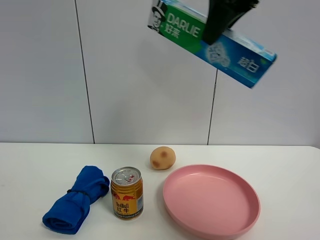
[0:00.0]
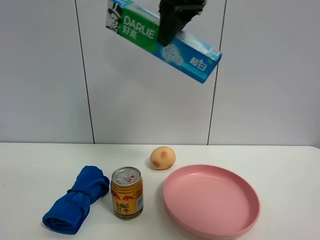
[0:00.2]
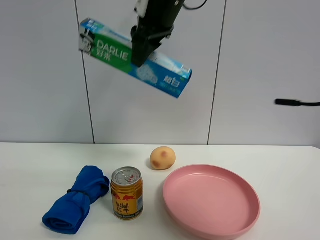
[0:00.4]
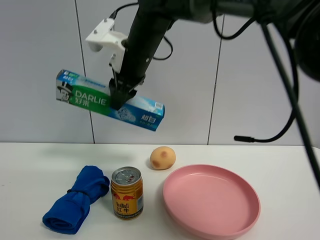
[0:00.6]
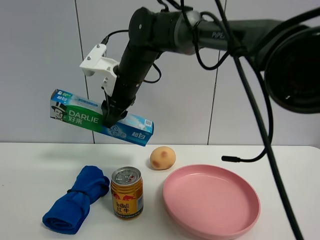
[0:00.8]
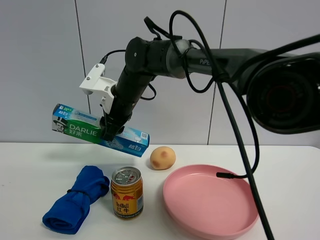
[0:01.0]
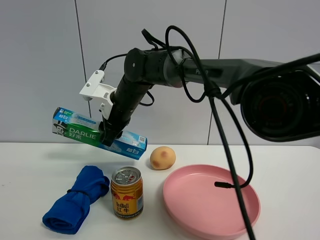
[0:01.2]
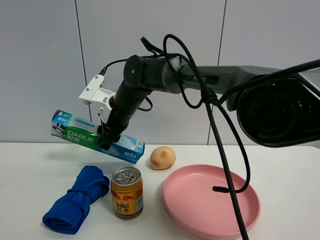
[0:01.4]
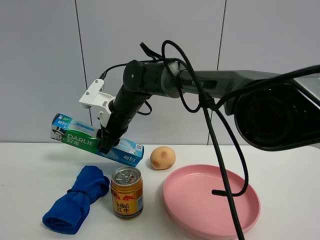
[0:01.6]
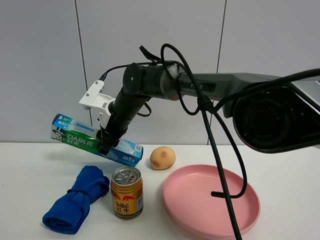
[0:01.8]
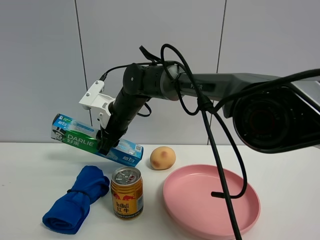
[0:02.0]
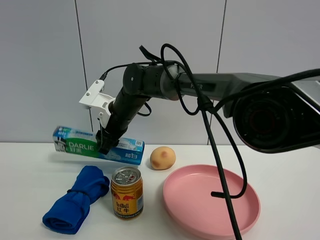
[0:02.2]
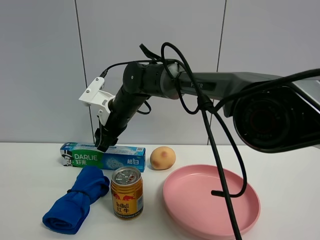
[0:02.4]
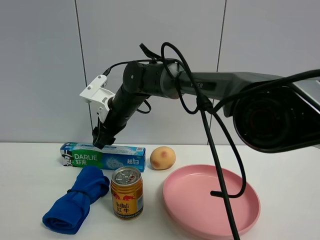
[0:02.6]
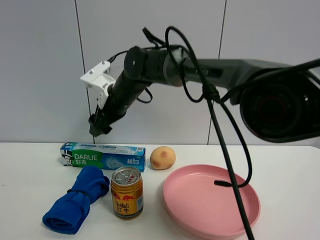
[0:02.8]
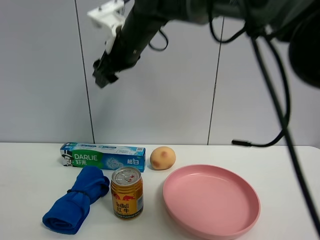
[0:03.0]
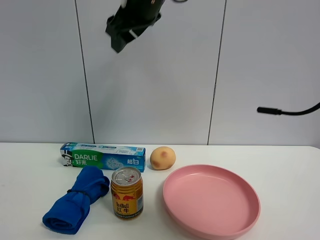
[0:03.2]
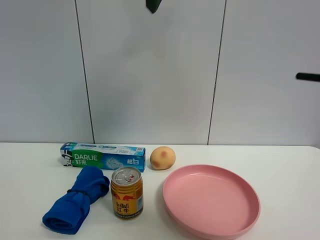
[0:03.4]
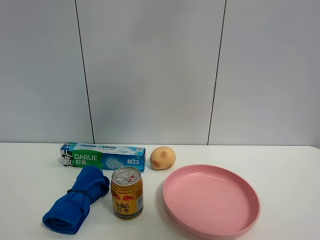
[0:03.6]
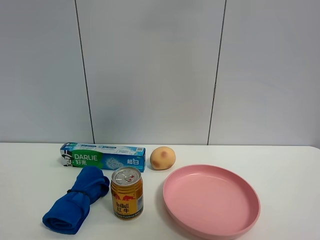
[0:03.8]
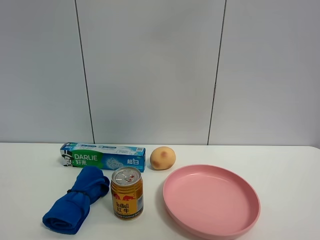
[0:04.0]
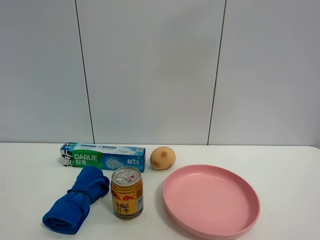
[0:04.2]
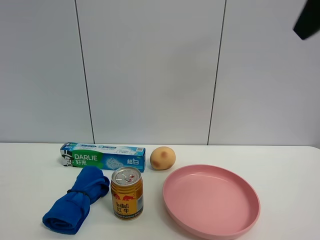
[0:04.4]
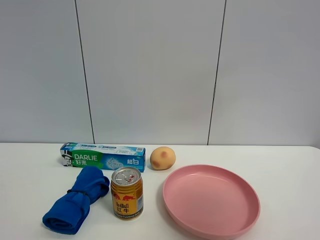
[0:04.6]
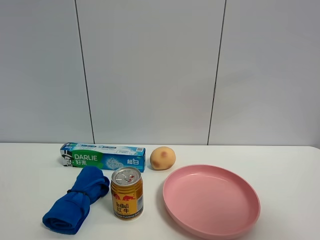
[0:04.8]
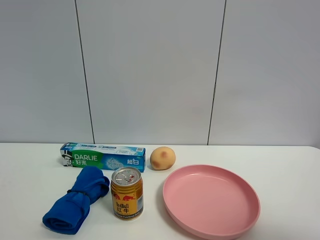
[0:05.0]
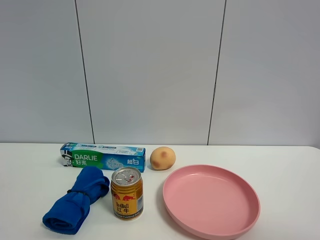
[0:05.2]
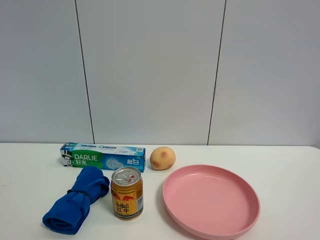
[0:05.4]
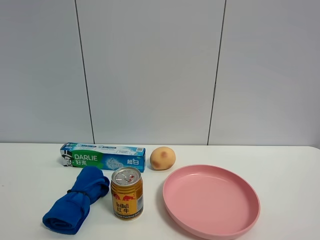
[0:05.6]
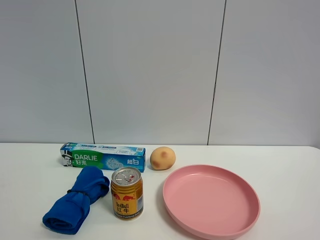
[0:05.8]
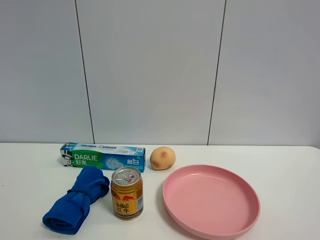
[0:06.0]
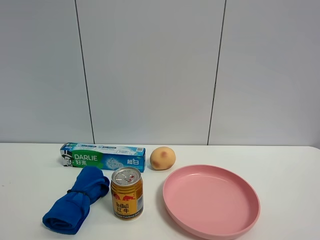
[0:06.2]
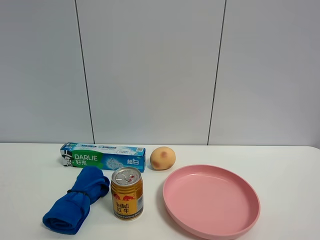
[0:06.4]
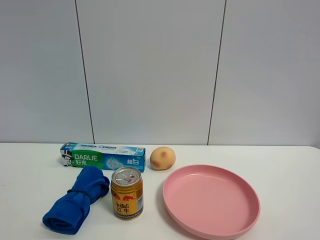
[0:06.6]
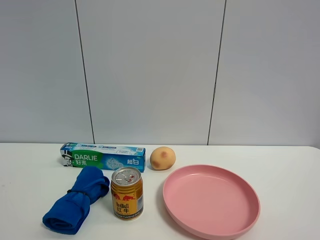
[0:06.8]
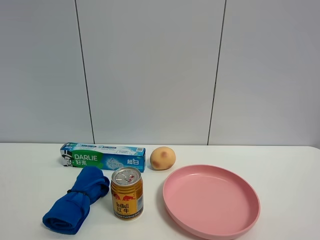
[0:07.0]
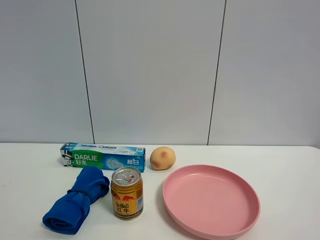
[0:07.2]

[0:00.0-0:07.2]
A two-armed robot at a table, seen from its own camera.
Task of the whole recording: the gripper move the object.
Step, 0.0 to 2.6 s: Place the toothpaste on the table with the right gripper.
0.0 to 1.4 s: The right gripper goes about 30 cm downward and to the left.
1.4 to 2.8 s: The right gripper opens up.
2.8 to 4.4 s: The right gripper goes some 40 cm to the right, backward and upward.
4.4 to 5.8 s: The right gripper shifts some 25 cm backward, downward and to the right.

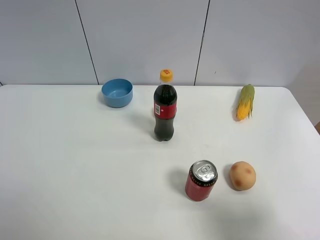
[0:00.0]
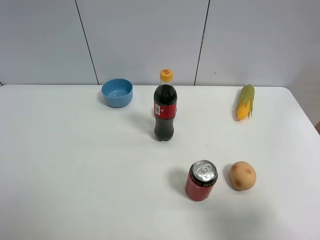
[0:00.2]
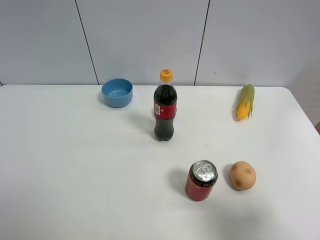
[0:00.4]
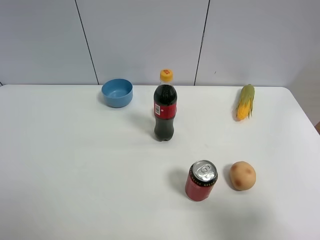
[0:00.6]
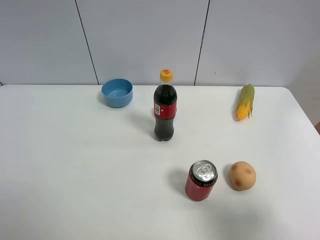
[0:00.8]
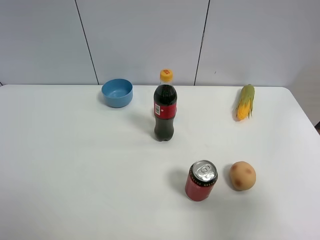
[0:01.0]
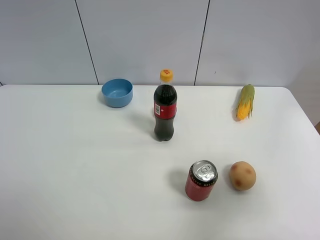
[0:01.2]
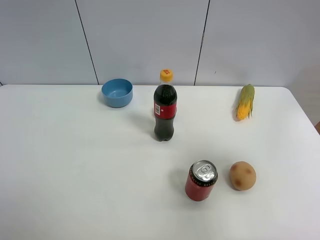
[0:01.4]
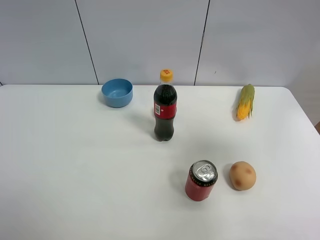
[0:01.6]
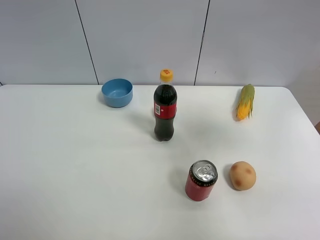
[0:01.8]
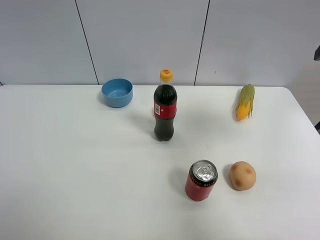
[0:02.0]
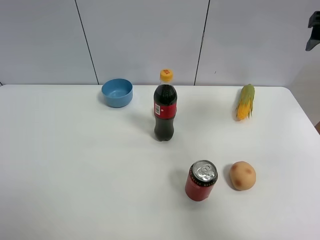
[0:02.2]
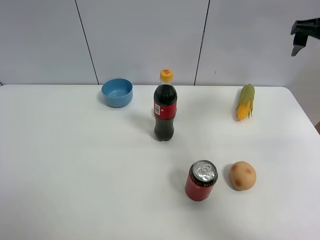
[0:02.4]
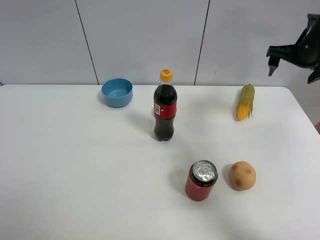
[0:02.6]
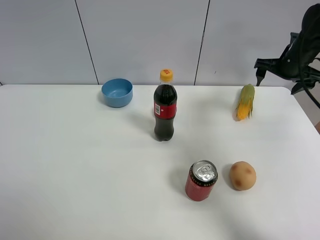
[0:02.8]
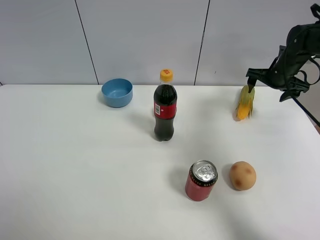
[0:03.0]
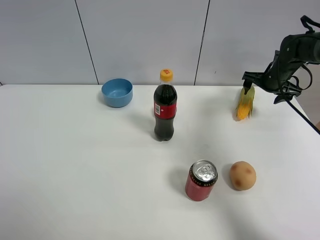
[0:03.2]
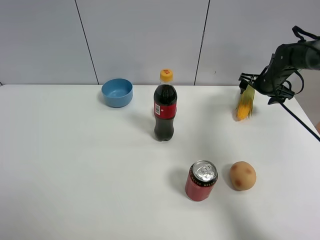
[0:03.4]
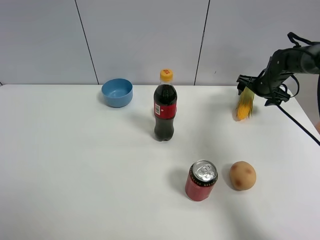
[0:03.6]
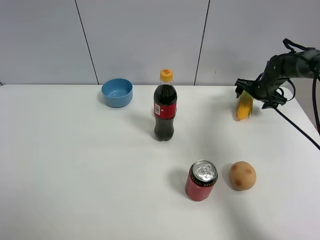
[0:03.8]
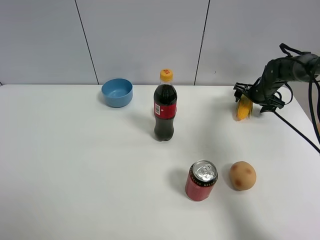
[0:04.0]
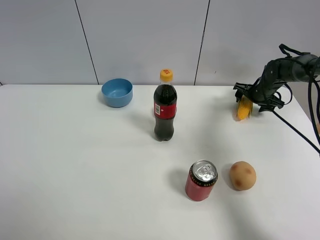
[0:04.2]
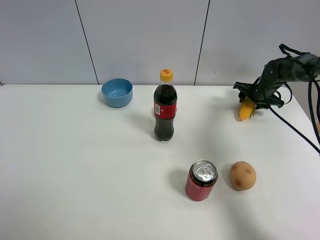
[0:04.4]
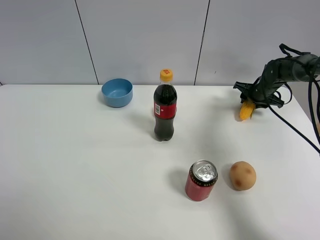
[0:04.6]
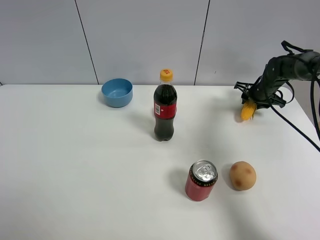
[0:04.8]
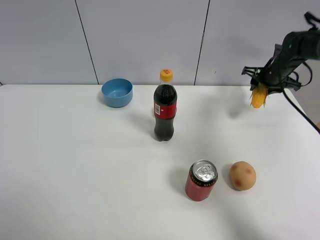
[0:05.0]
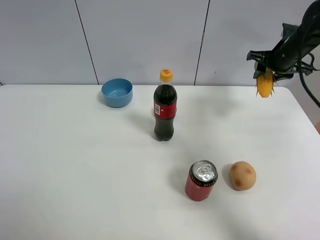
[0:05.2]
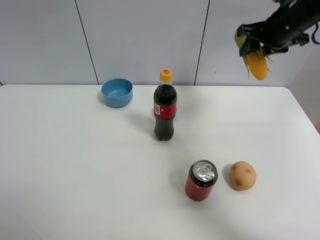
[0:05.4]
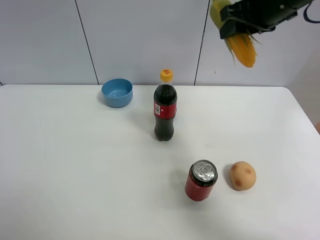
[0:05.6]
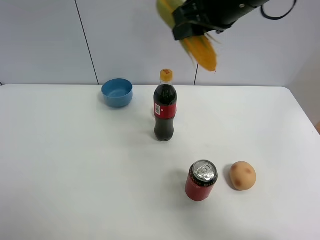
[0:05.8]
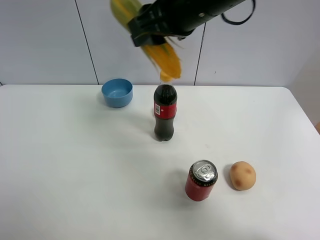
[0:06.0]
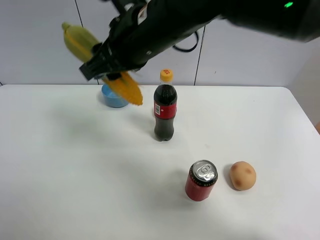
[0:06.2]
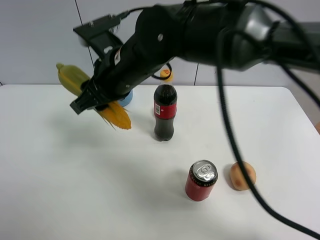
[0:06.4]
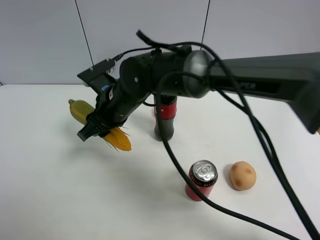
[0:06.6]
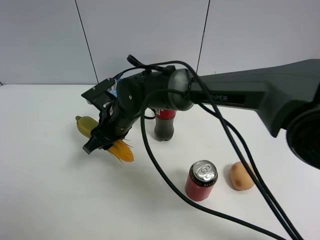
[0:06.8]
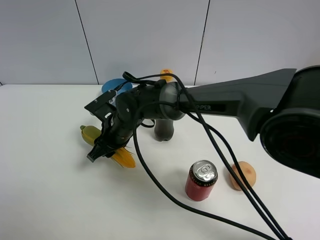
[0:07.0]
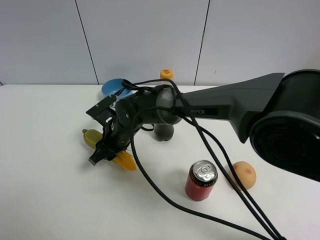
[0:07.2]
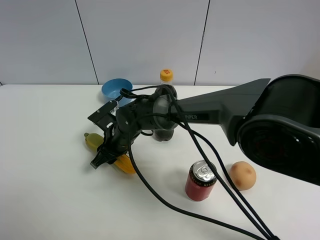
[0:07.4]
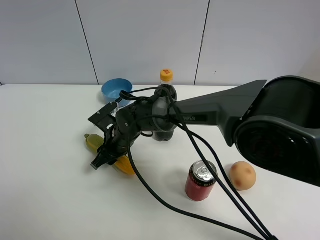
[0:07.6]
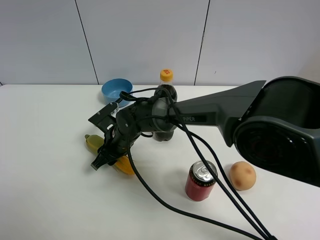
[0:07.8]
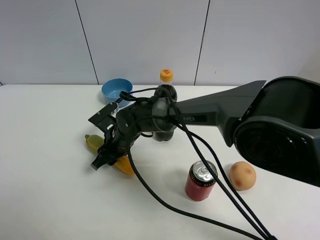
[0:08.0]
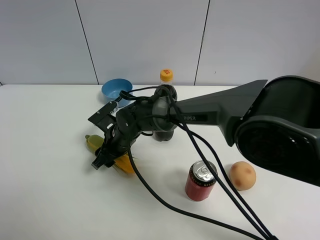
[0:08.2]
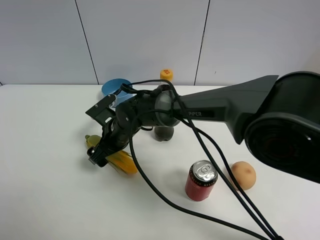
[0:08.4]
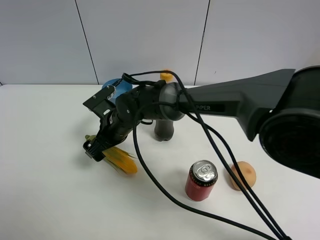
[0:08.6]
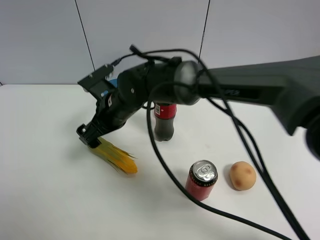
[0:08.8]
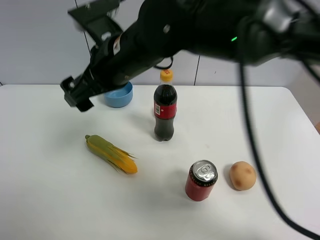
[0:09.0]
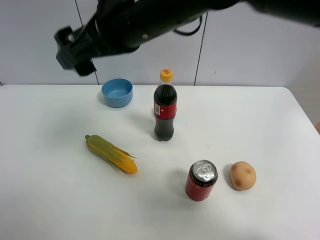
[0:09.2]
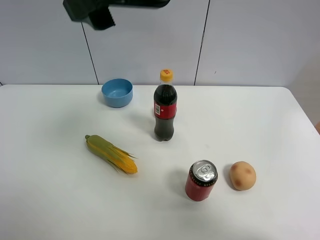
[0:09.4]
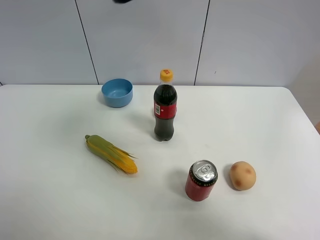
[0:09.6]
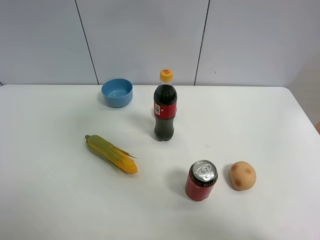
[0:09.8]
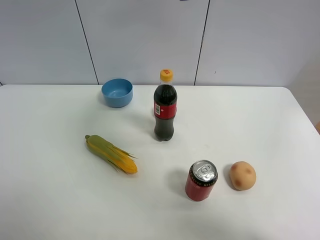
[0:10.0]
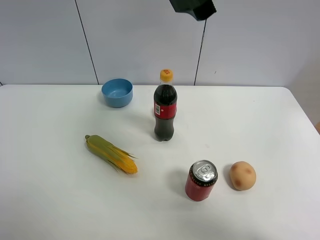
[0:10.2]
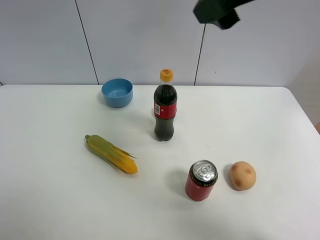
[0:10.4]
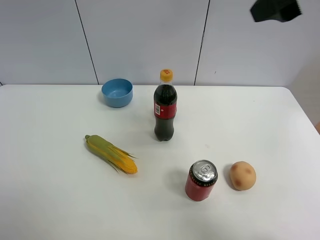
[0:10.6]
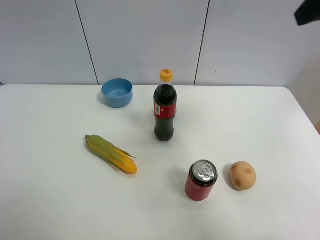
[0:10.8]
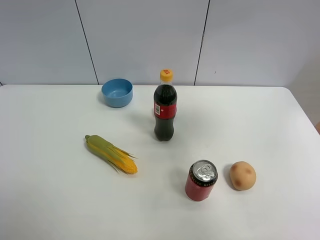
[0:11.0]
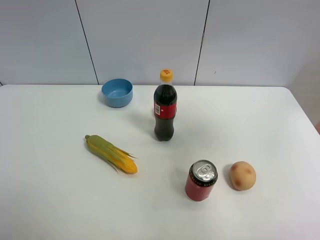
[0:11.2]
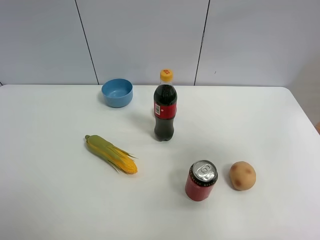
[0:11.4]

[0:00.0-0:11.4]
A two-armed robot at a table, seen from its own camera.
Task of the whole recording: the gripper move the object.
Step, 0.0 to 4.4 s: Grasp the corn with the right gripper.
Step, 4.6 to 8.2 s: Place the corn on the table with the right gripper.
0.0 to 1.4 s: The right gripper shifts roughly 15 cm forward and upward.
1.4 to 2.8 s: The right gripper is displaced forward and downward by approximately 35 cm.
2.8 to 4.2 s: The right gripper heads downward, covering about 10 cm.
4.2 to 5.6 s: The right gripper shifts some 35 cm upward, to the left and backward, and closes up.
5.6 to 7.2 s: The right gripper goes roughly 40 cm downward and to the left.
7.2 to 8.6 s: The right gripper opens up.
8.6 to 10.0 s: The right gripper shifts roughly 35 cm upward and to the right.
10.0 to 11.4 s: The right gripper heads to the right and backward, covering about 25 cm.

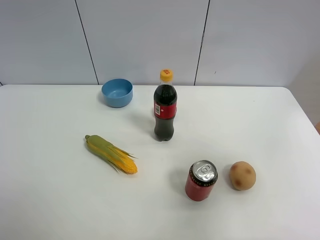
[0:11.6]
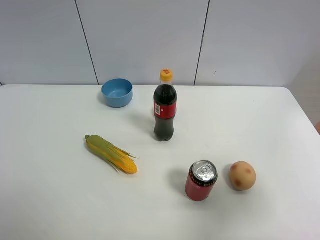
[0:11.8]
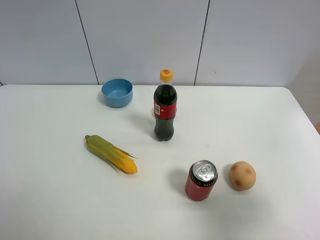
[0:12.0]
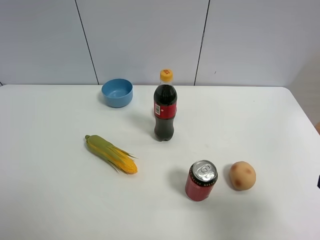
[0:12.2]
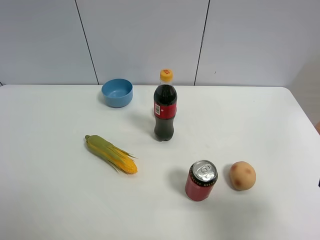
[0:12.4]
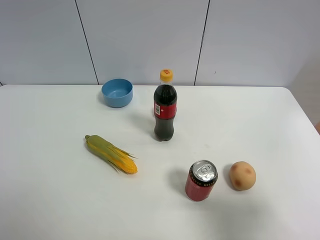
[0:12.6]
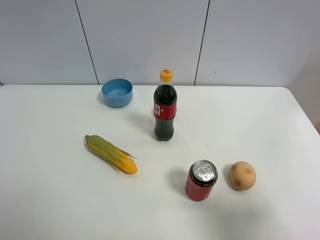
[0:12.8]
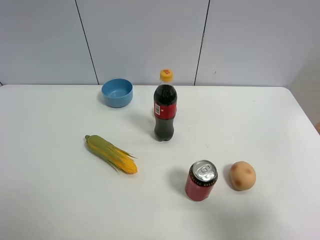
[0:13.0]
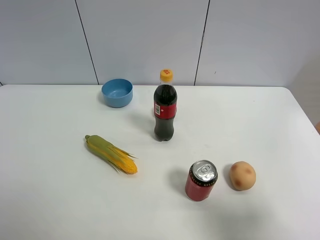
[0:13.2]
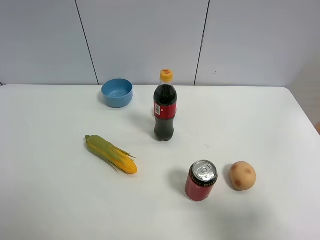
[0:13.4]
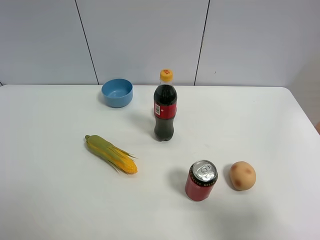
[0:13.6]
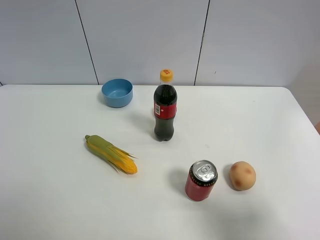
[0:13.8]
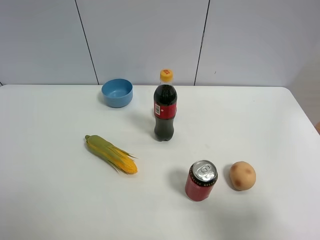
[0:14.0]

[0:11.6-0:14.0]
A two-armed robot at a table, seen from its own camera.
Task of the whole recording: the gripper move the object.
11.6 to 12.8 s: The right gripper moves downward and backward, roughly 10 cm.
12.8 to 14.0 s: Neither gripper changes place.

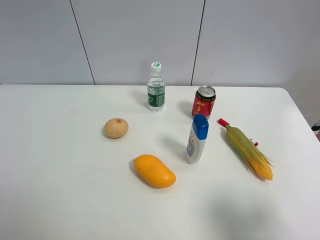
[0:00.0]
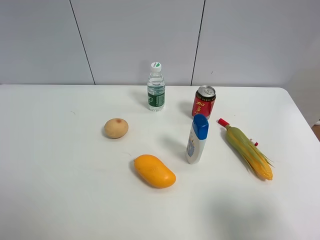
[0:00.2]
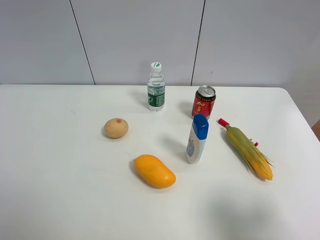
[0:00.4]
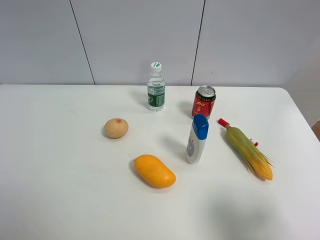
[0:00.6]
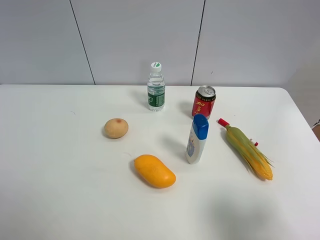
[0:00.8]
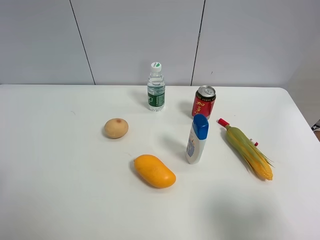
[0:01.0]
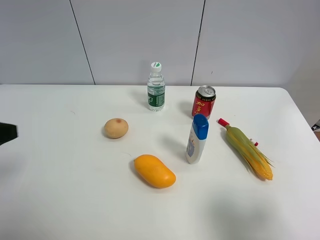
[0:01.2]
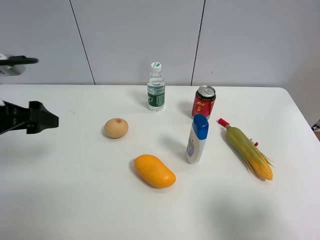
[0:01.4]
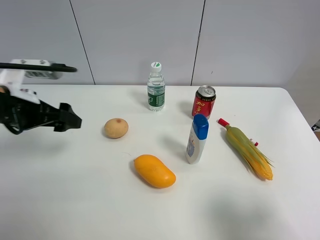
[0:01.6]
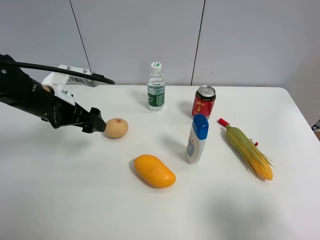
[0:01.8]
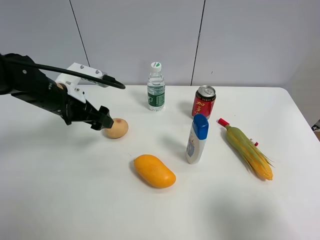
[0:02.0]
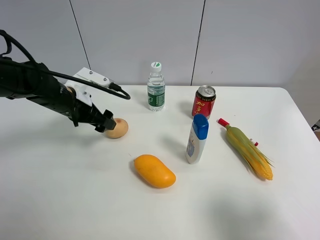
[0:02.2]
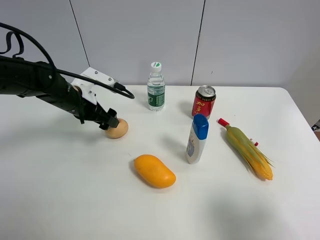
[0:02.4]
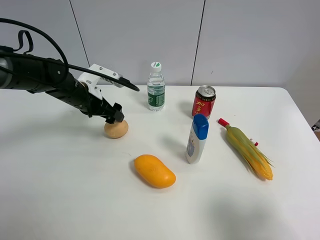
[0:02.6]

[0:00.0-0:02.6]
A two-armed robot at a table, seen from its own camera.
Task of the whole recording: the gripper move the object.
1.2 to 2.6 s: The left gripper heads forward, downward and to the right, covering some 30 cm.
